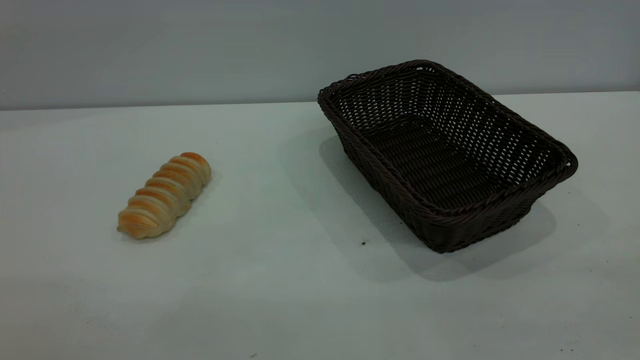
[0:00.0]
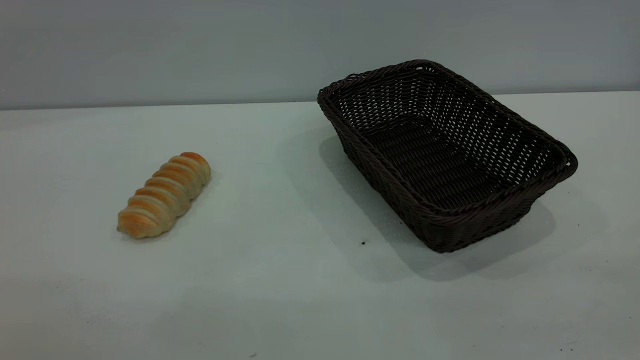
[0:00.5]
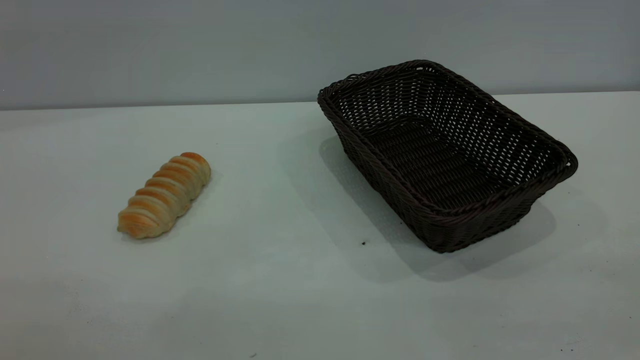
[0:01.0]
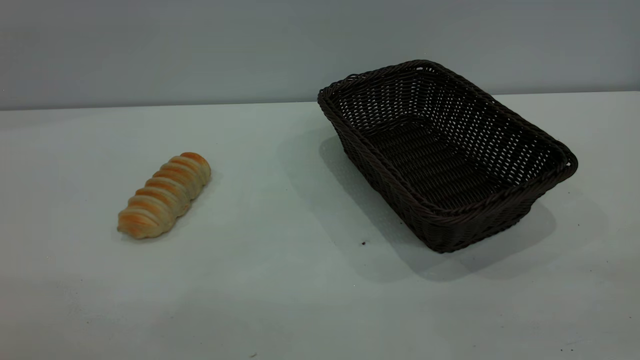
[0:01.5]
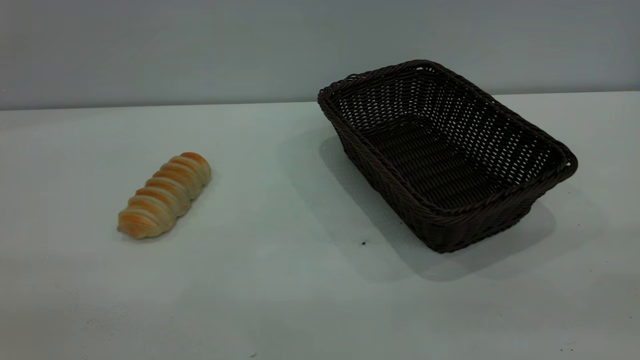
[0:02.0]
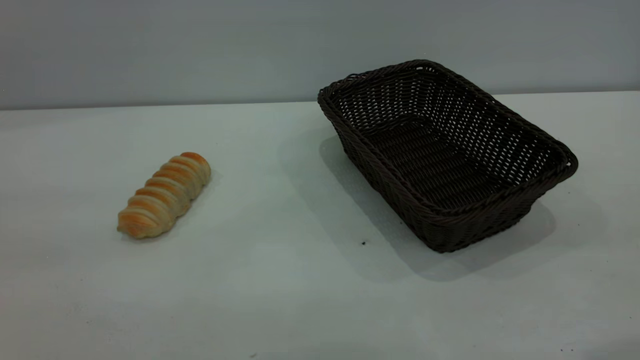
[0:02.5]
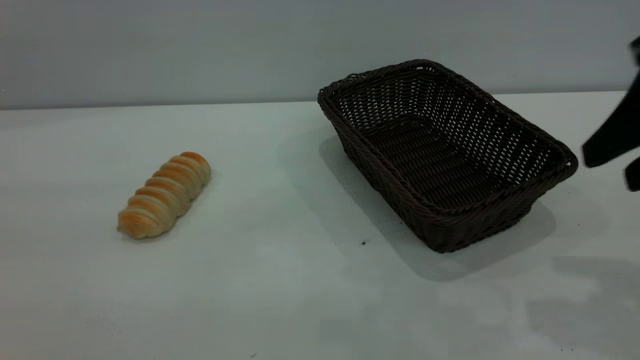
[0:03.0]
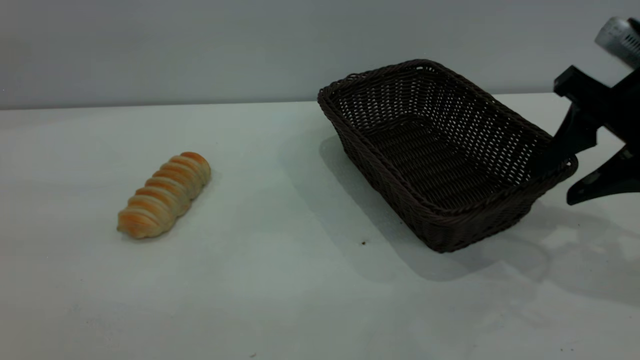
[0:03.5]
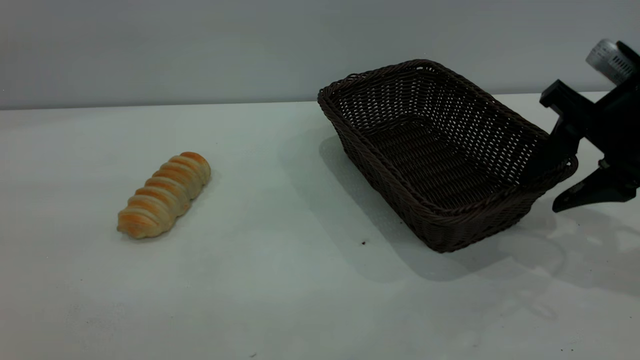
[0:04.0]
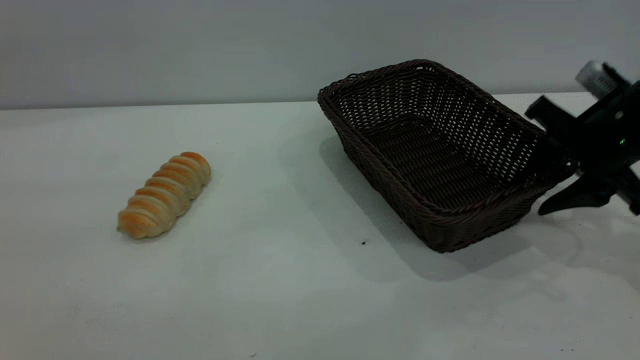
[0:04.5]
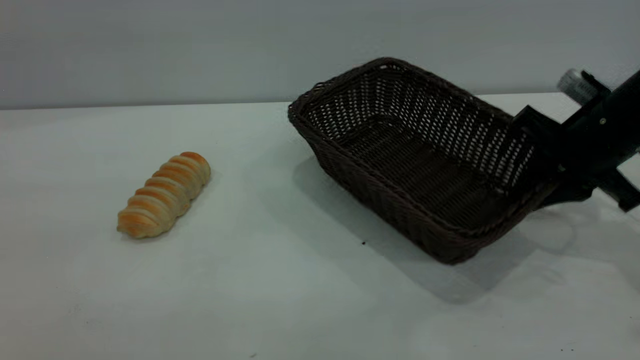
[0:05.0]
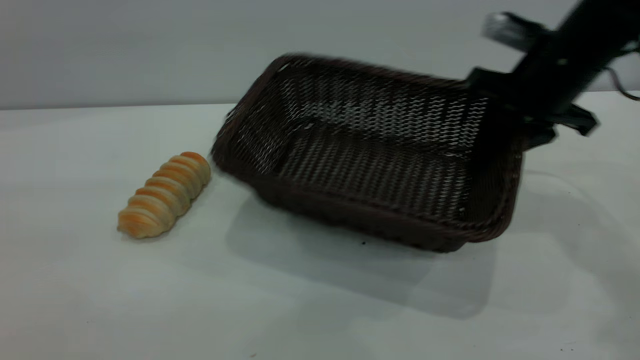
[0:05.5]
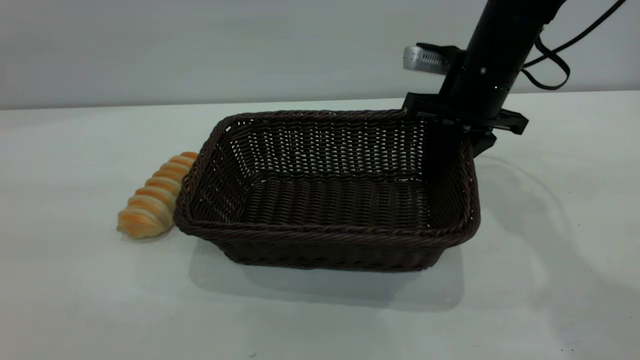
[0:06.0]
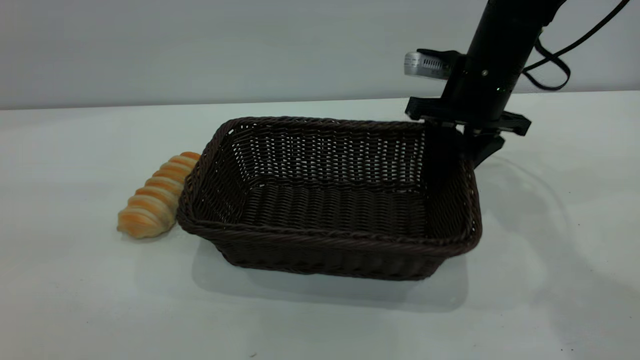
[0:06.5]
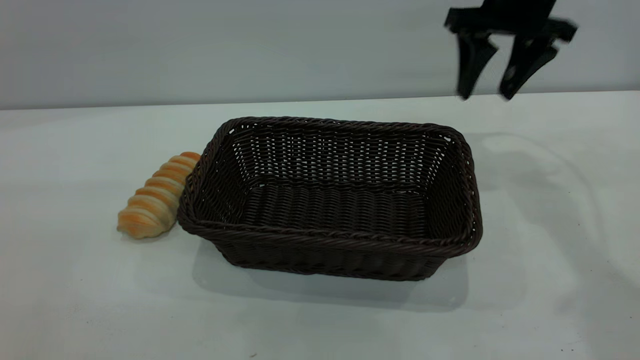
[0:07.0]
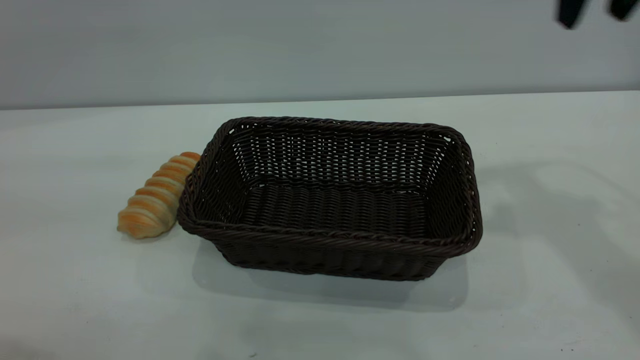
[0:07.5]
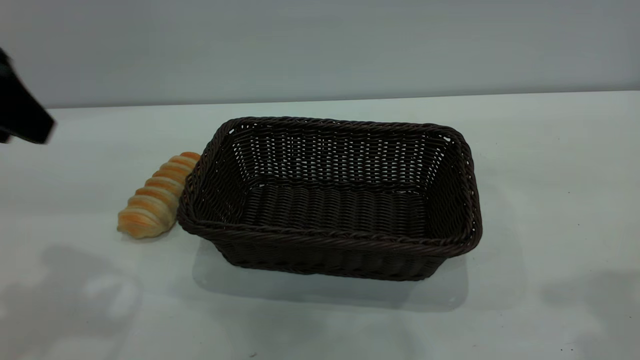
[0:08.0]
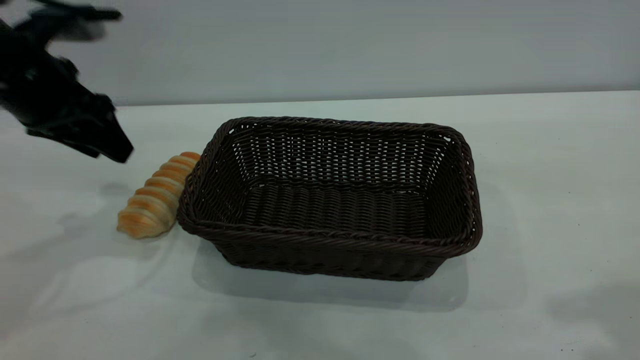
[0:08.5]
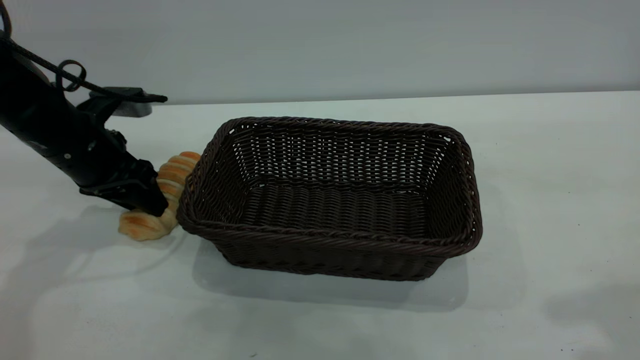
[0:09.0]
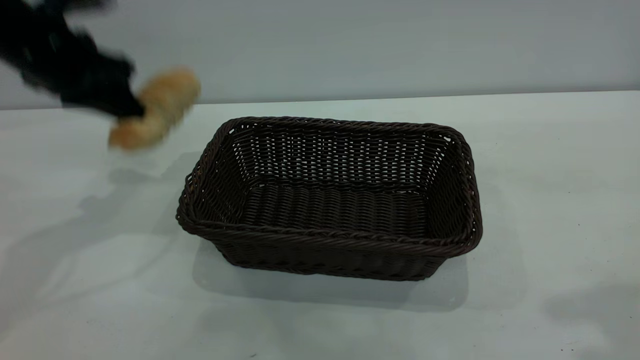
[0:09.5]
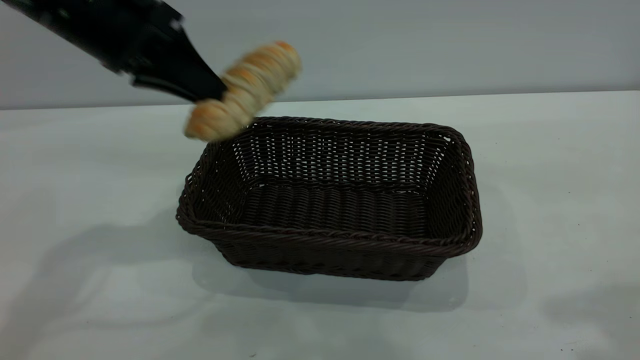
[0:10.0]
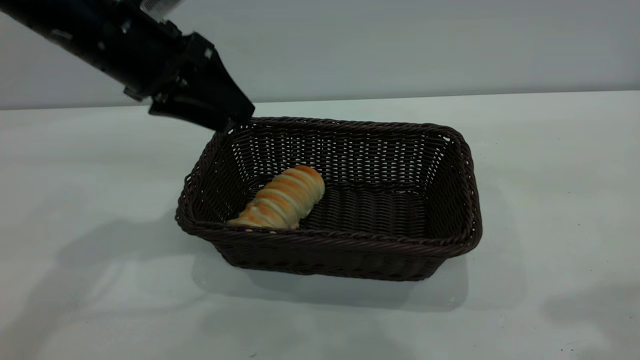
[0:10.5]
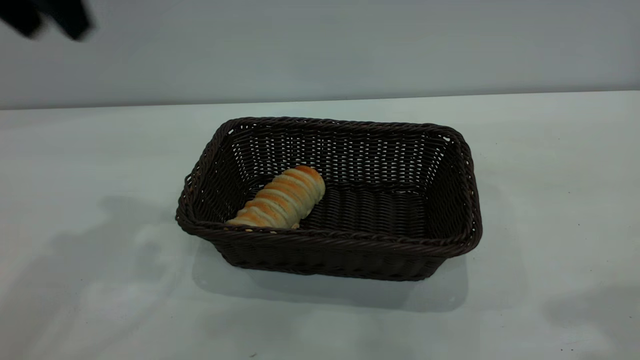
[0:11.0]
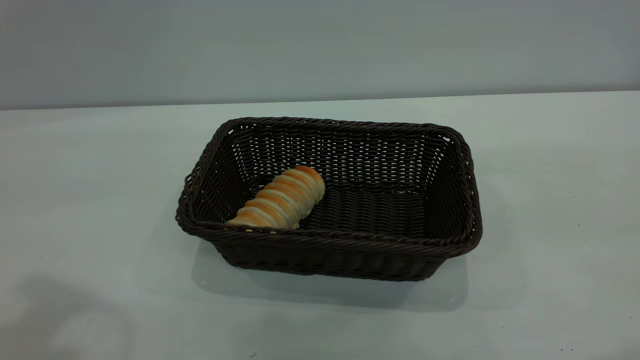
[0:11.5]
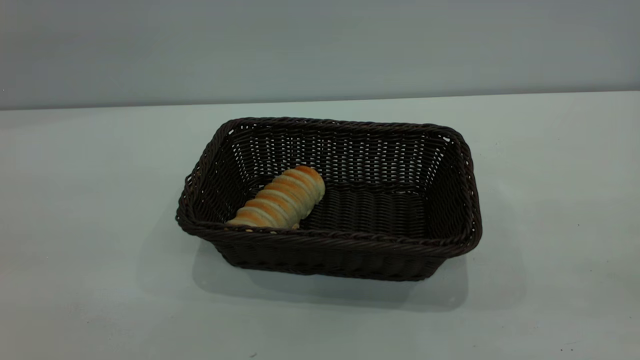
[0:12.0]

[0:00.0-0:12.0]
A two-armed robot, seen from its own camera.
Task of the whole recording: One hand grasps the black basket and places it in the middle of the table, while the other hand picks up the long bread and puts it into the black basket.
Step, 0:00.0 to 0:06.5: Move the basket to the center of view.
Step, 0:09.5 to 0:10.5: place the bread into the basket.
0:02.0 to 0:04.0: The right gripper goes about 35 cm forward and downward.
0:04.0 to 0:06.0: The right gripper goes roughly 15 cm forward and to the left, and closes its fingers.
0:06.0 to 0:08.0: The left gripper travels forward and downward by approximately 20 cm, while the right gripper shifts some 35 cm upward, backward and to the right, and opens up.
0:08.0 to 0:10.0: The left gripper goes some 15 cm forward and to the right, moves approximately 15 cm downward and comes back, and closes its fingers.
0:10.0 to 0:12.0: The left gripper shifts about 35 cm backward and upward, and opens its fingers, while the right gripper is displaced backward by about 15 cm.
